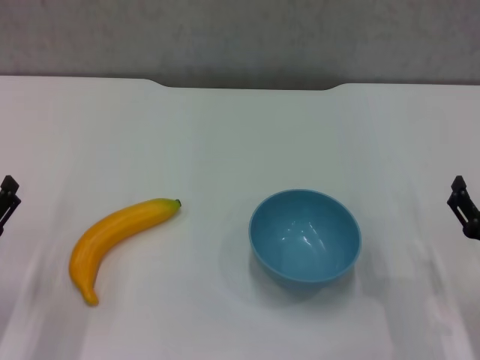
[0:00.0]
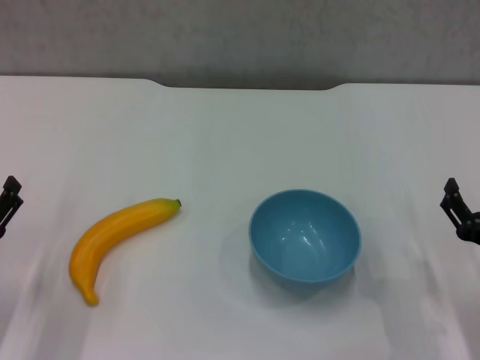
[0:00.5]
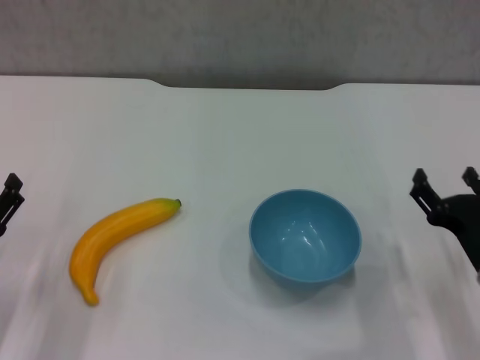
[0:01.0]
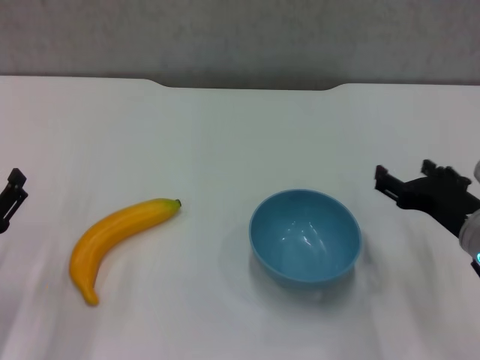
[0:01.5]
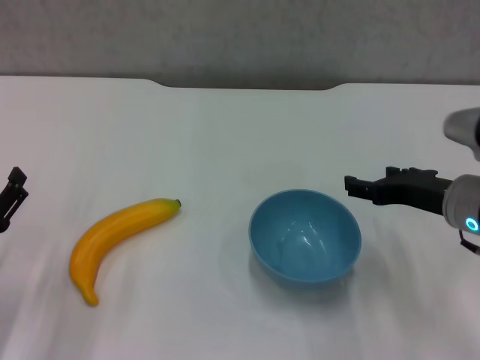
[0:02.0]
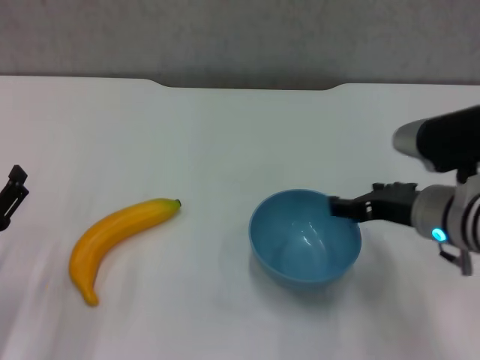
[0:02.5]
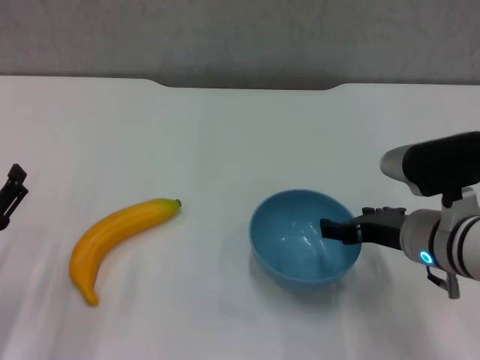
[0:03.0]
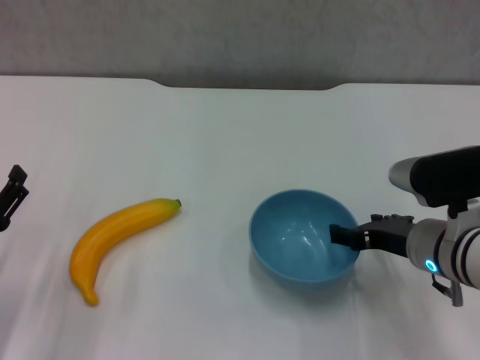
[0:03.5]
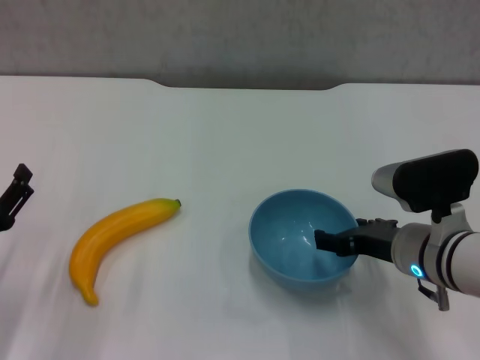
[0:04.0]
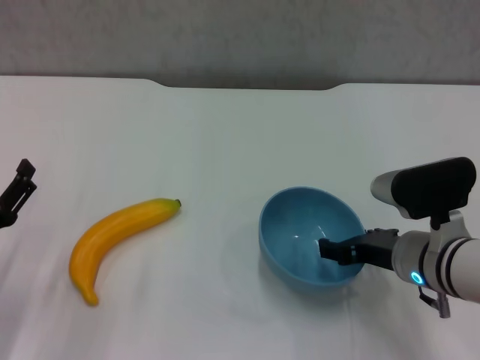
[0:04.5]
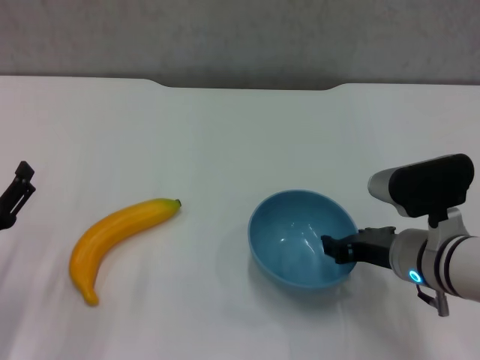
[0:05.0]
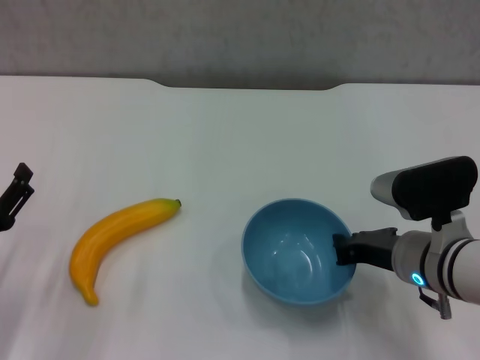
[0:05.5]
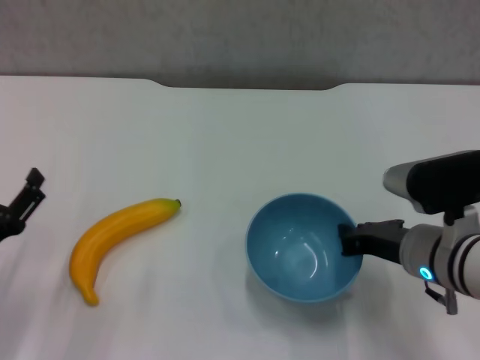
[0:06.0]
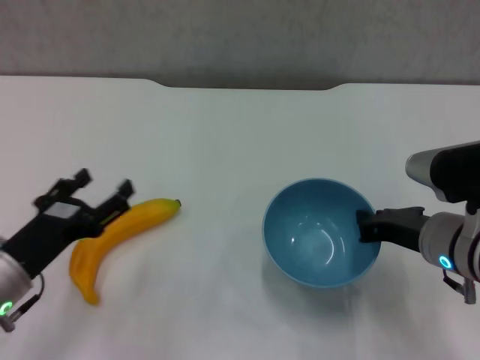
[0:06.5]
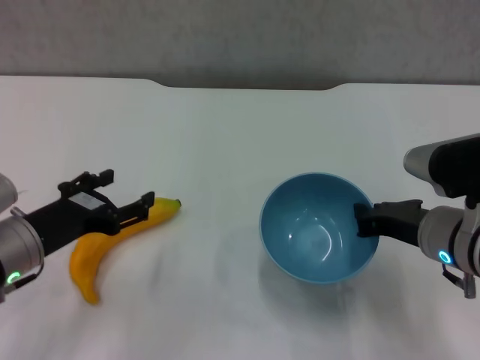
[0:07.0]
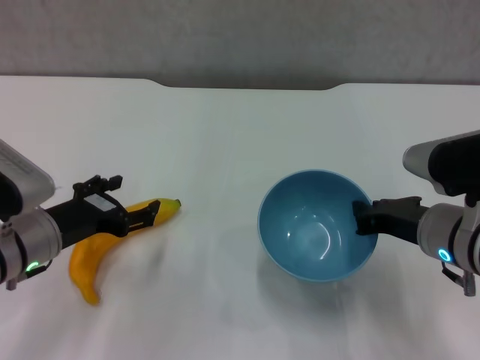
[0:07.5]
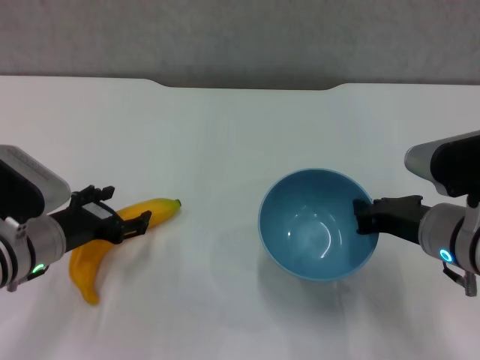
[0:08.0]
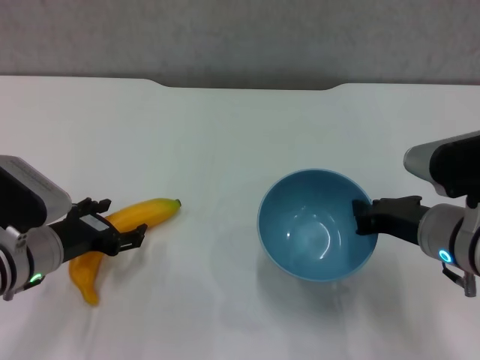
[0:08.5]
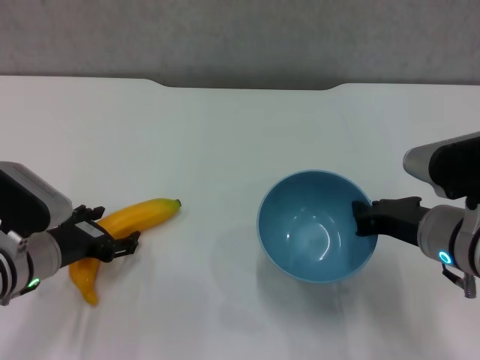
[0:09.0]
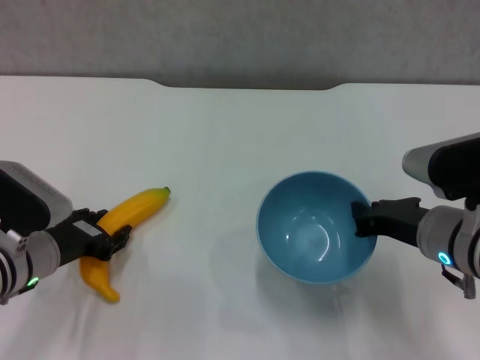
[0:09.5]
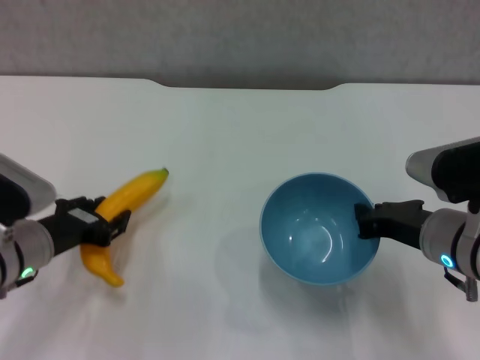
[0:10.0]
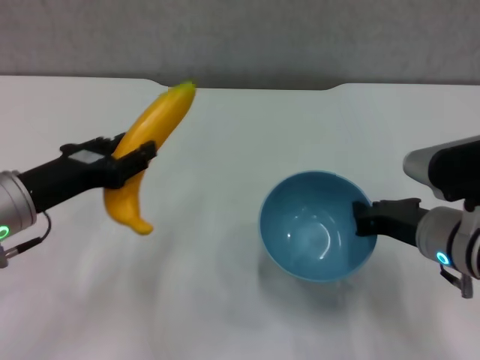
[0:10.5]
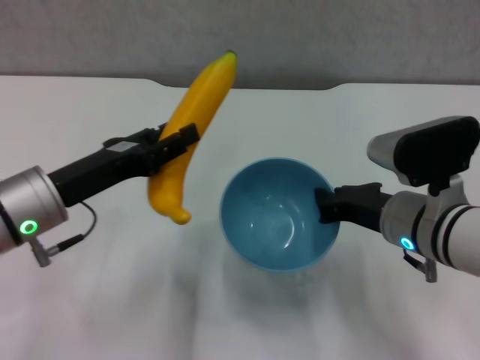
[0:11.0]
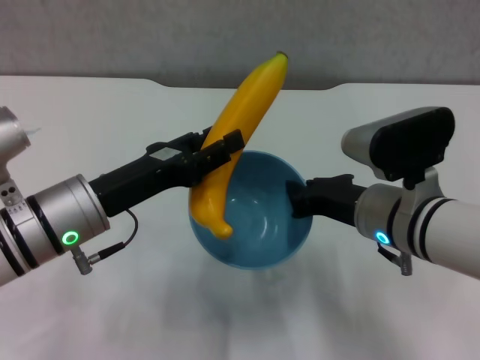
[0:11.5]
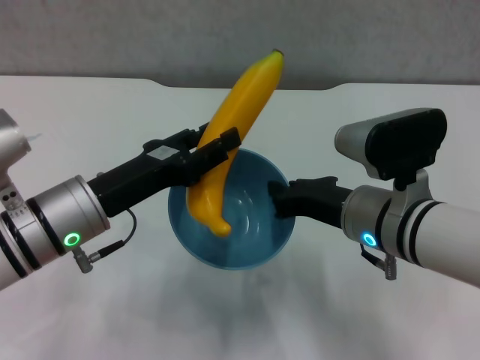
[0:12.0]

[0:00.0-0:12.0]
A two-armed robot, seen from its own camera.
Step, 0:00.0 to 0:05.0: Grasp the blue bowl with right gripper.
Step, 0:05.5 to 0:06.0: Lift the blue bowl with right gripper.
Step, 0:07.0 to 0:09.5: Grasp the banana with left gripper.
0:00.0 to 0:02.0: The right gripper shifts about 15 cm forward, upward and to the left.
0:02.0 to 0:04.0: The right gripper ends up some 5 cm from where it was.
0:04.0 to 0:06.0: The right gripper closes up.
0:06.0 to 0:08.0: The left gripper travels forward and to the right by approximately 10 cm.
0:08.0 to 0:10.0: The left gripper closes.
0:10.0 to 0:12.0: The right gripper goes about 5 cm to the left. The left gripper moves upward and to the right, some 10 cm.

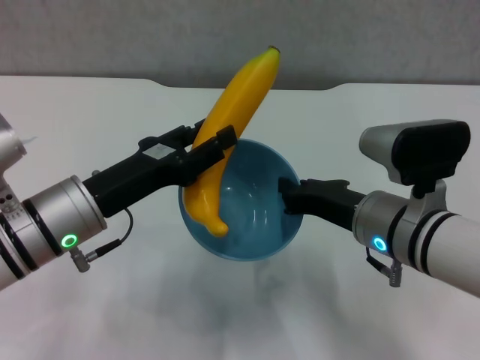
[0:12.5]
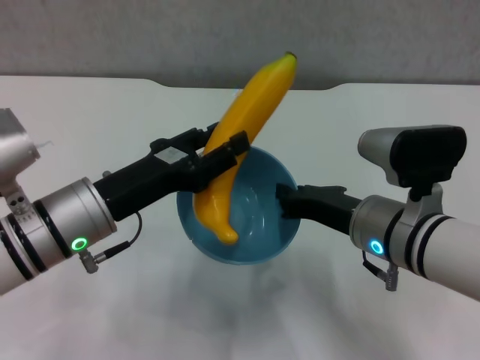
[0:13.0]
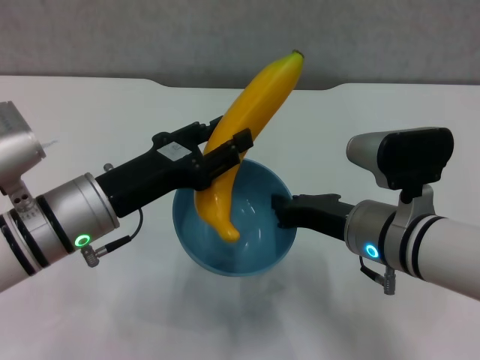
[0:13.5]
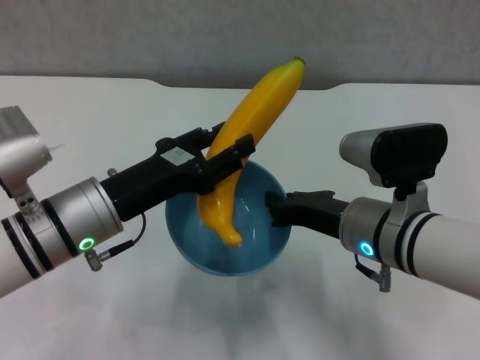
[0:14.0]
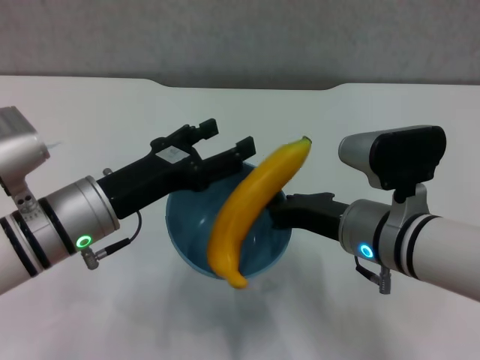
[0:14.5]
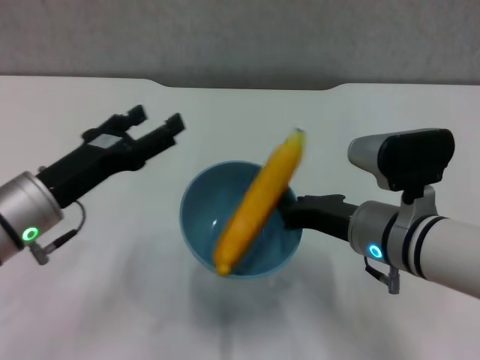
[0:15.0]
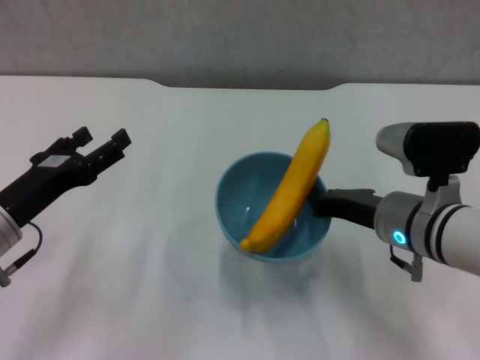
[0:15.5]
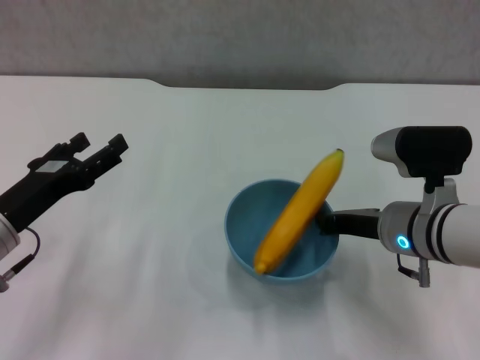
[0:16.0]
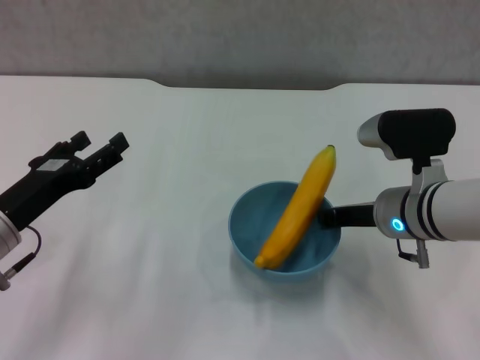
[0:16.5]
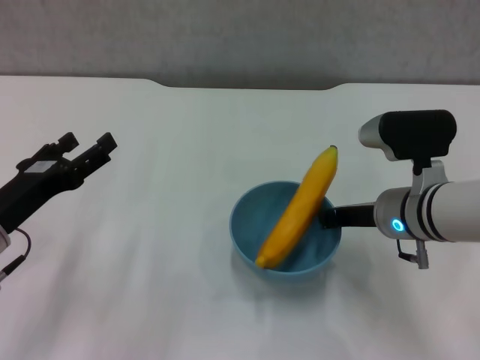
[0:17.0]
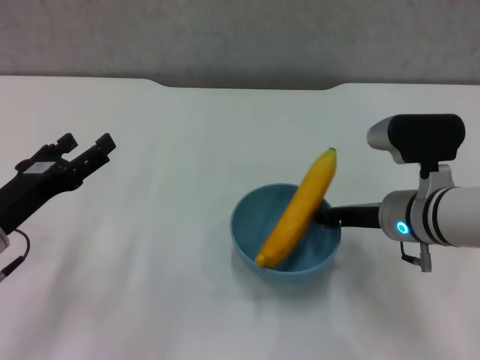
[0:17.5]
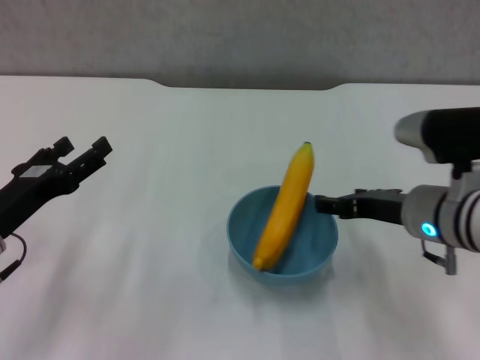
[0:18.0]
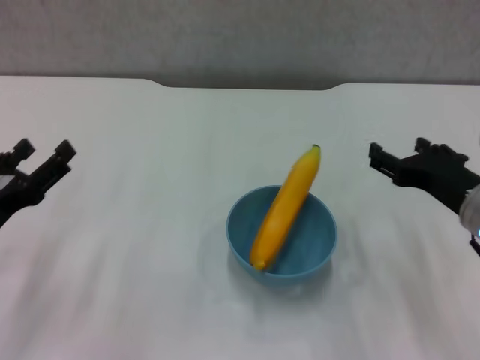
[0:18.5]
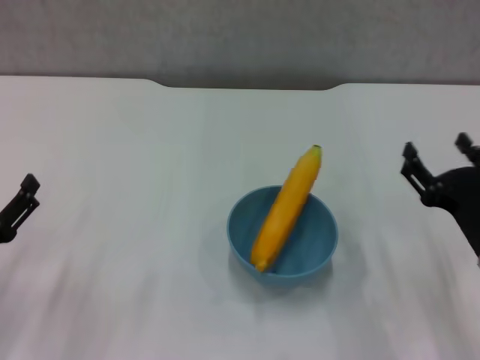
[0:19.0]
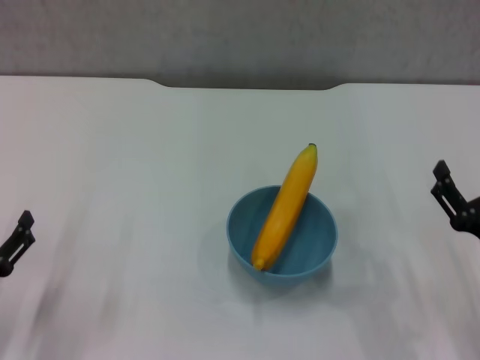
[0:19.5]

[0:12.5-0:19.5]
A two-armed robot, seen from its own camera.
Step, 0:14.5 to 0:18.0: Place the bowl on the table with right gripper.
0:12.5 to 0:14.5: The left gripper opens.
0:14.5 to 0:16.0: The right gripper ends up roughly 5 cm from where it was, while the left gripper shifts some 10 cm to the left.
0:16.0 to 0:17.5: The grippers stay close to where they were, moving slightly.
0:17.5 to 0:19.5: The left gripper goes approximately 10 cm backward and downward. The right gripper heads backward and to the right, covering roughly 15 cm, and opens up.
